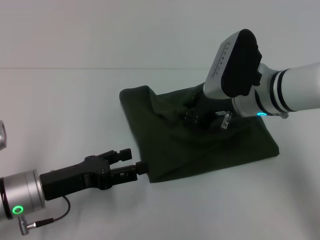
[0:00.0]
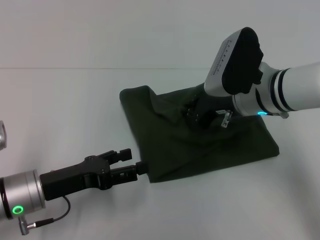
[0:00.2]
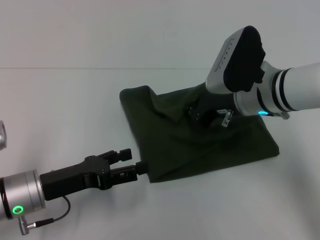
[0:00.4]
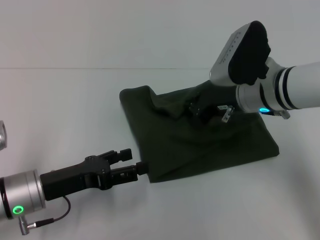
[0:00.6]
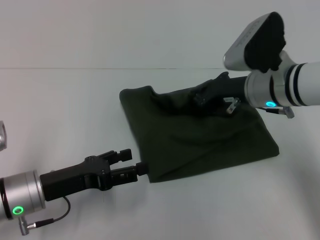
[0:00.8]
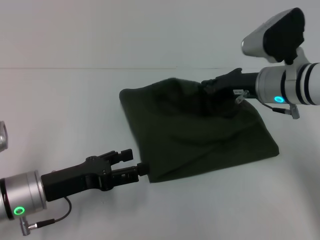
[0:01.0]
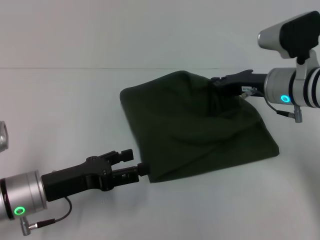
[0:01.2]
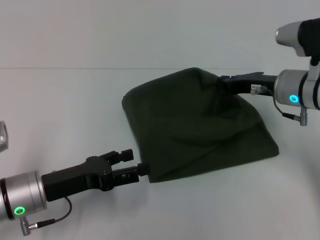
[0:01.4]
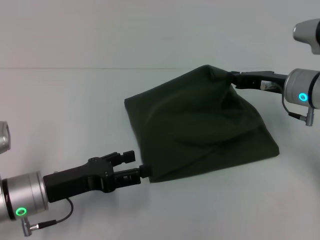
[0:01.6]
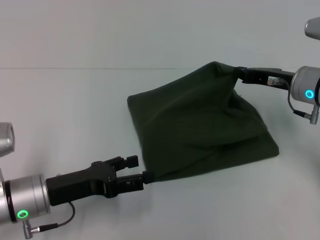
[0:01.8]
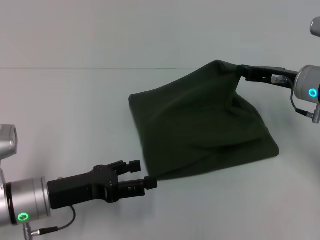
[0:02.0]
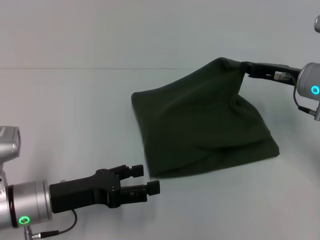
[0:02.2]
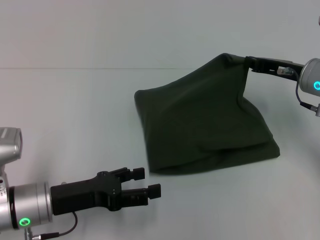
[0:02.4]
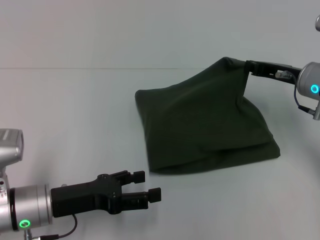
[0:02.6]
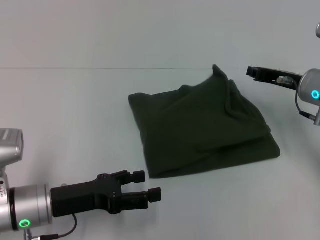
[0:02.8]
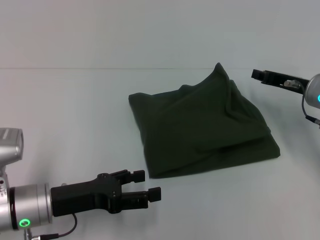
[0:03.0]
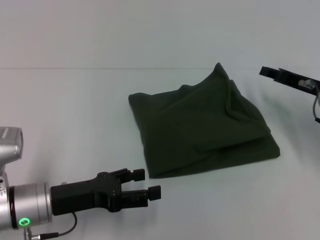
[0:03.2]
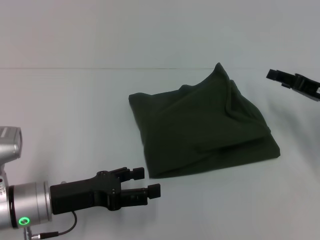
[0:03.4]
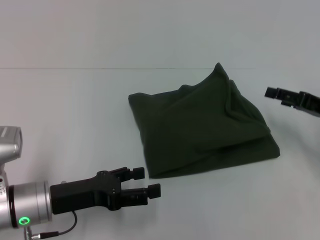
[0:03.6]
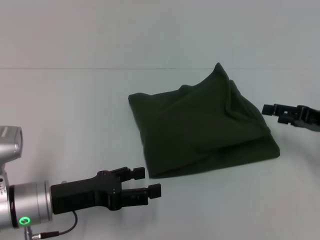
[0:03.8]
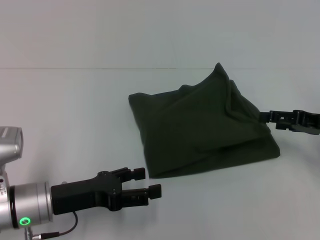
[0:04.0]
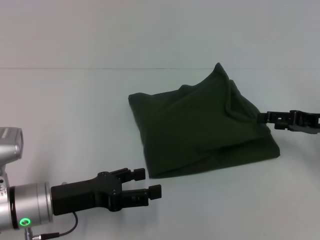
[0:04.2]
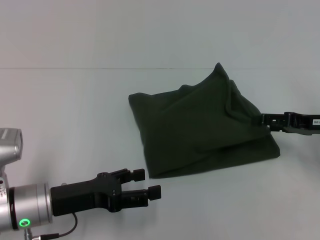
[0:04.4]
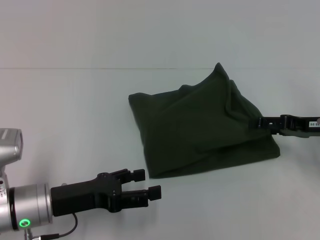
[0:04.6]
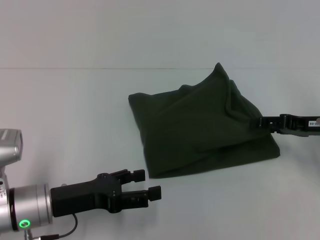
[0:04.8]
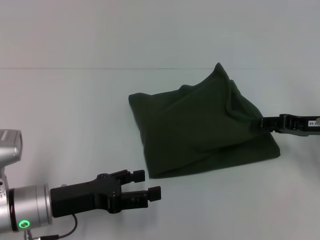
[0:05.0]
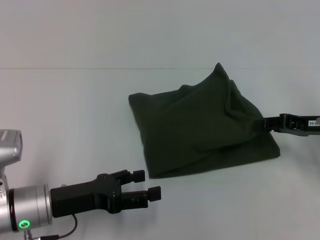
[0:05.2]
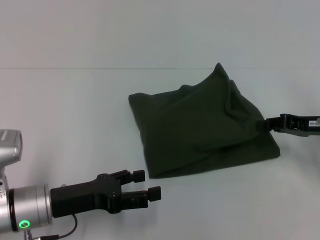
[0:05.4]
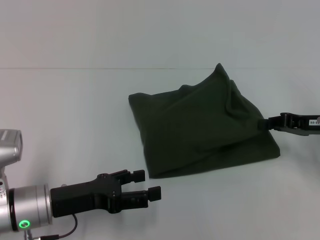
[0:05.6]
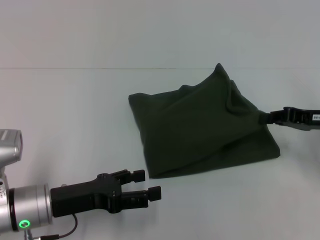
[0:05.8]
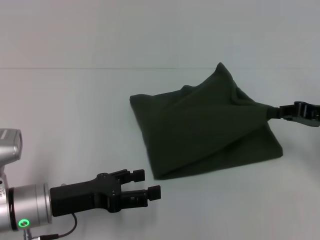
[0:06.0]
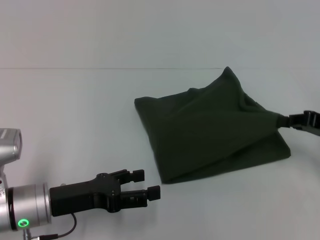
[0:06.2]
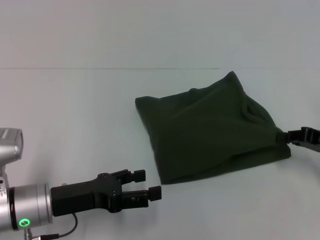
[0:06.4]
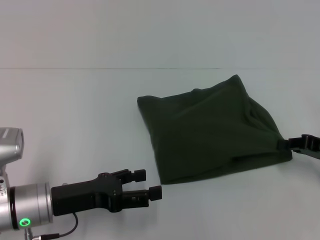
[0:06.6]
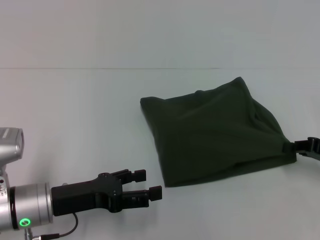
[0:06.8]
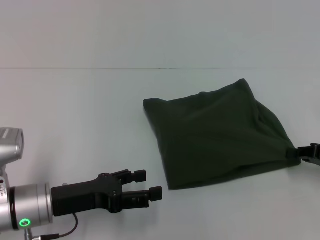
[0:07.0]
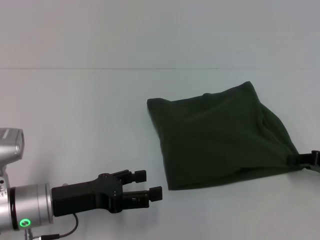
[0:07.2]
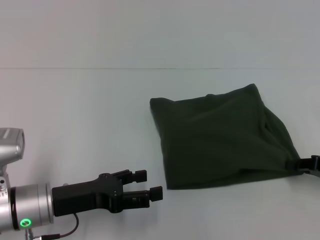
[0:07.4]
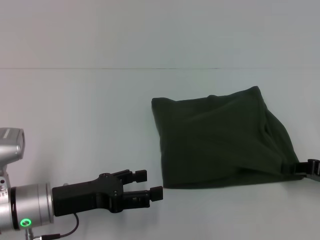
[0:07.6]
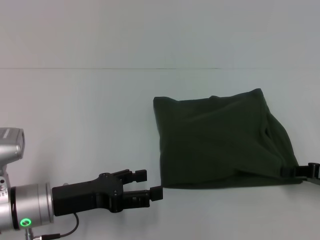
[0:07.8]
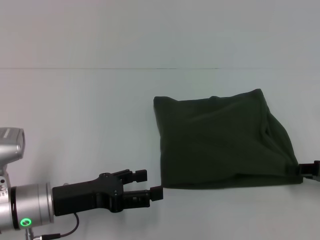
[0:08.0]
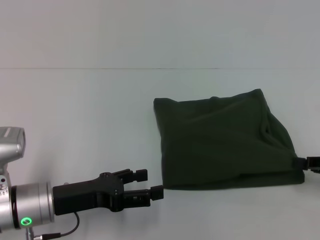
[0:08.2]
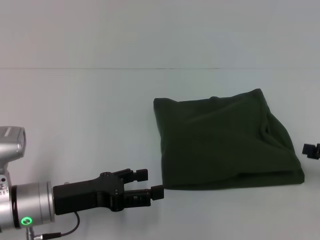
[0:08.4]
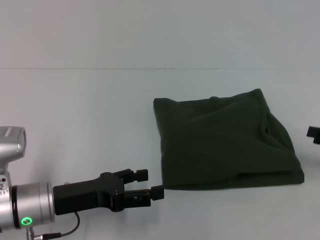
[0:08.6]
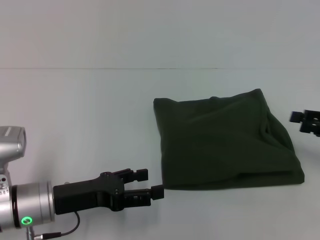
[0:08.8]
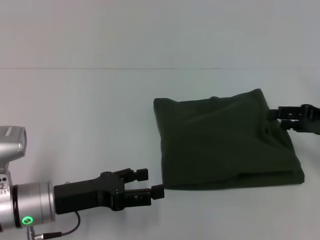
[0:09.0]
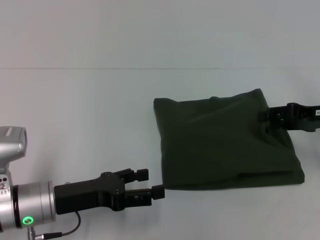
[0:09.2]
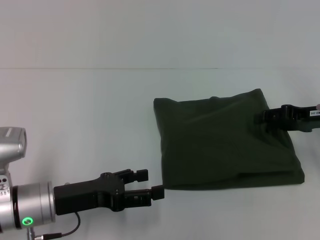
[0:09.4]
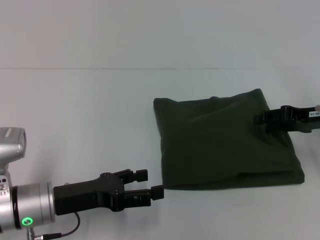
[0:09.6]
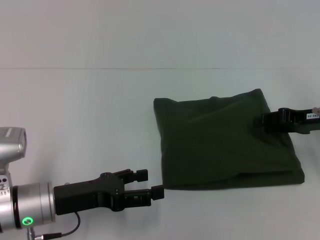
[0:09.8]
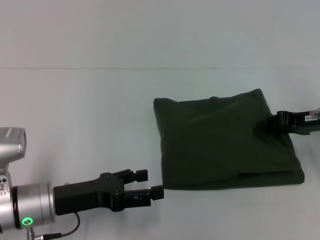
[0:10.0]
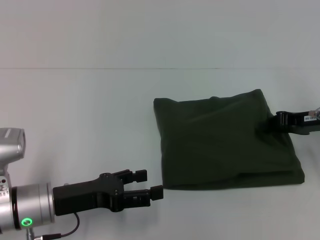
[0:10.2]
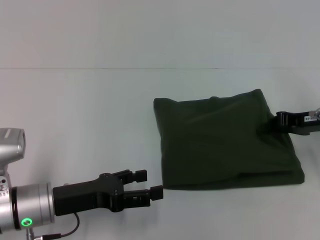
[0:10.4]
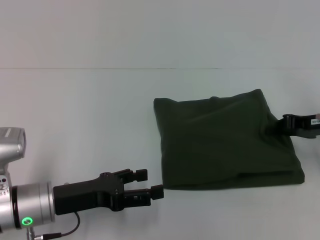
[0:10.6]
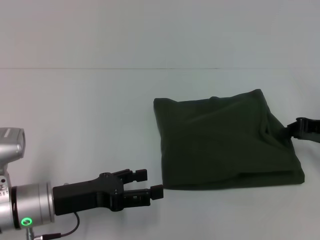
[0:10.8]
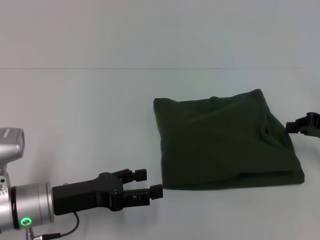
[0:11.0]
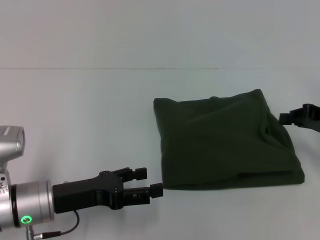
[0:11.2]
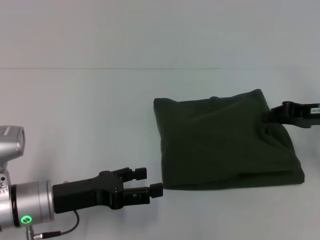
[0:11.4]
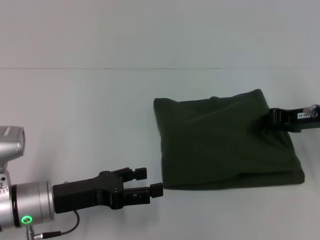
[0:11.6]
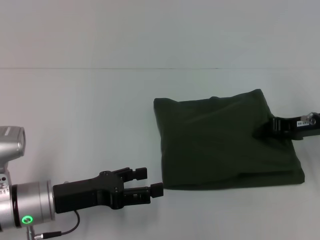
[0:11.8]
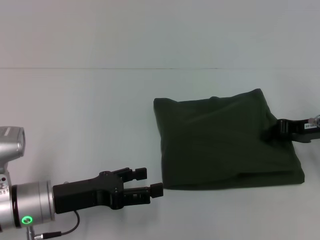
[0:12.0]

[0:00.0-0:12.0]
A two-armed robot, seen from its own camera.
0:00.0 to 0:01.6: The right gripper heads to the right, covering some 10 cm, and closes its fingers.
0:01.6 to 0:03.0: The grippers make only small movements.
0:03.0 to 0:04.4: The right gripper moves backward, approximately 5 cm, and opens its fingers.
0:04.4 to 0:06.0: The right gripper closes up.
0:06.0 to 0:07.6: The right gripper is displaced backward and downward by some 10 cm.
0:07.6 to 0:09.0: The right gripper goes roughly 10 cm forward and upward, and opens its fingers.
0:09.0 to 0:10.4: The right gripper closes.
0:10.4 to 0:12.0: The grippers make only small movements.

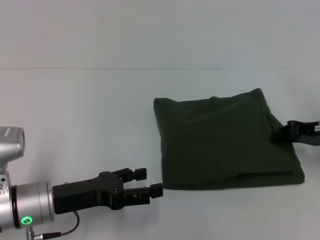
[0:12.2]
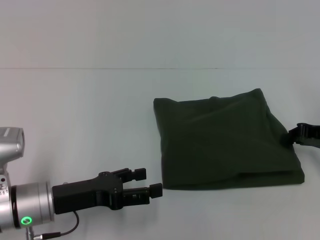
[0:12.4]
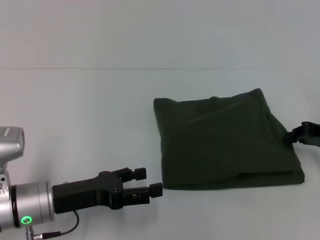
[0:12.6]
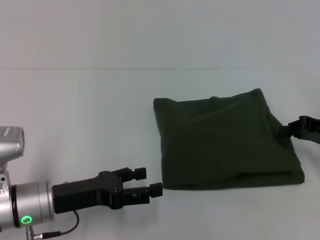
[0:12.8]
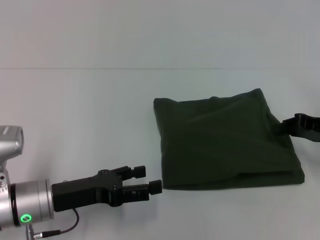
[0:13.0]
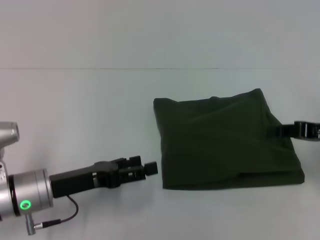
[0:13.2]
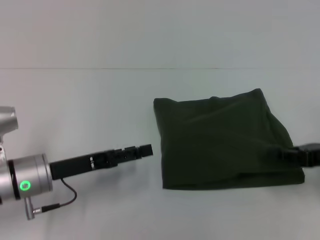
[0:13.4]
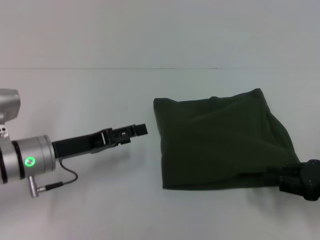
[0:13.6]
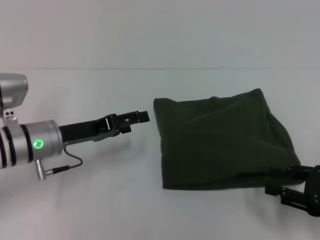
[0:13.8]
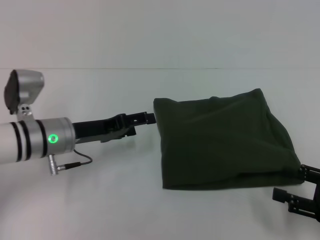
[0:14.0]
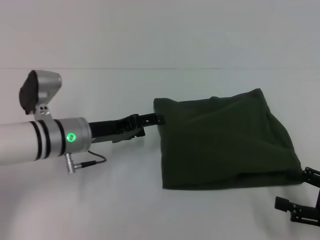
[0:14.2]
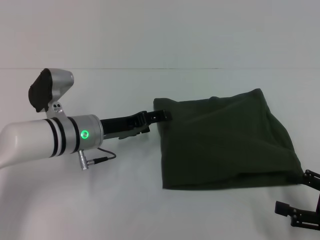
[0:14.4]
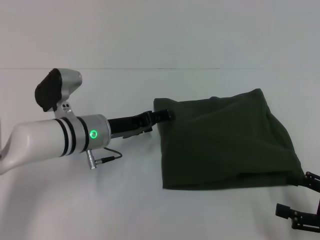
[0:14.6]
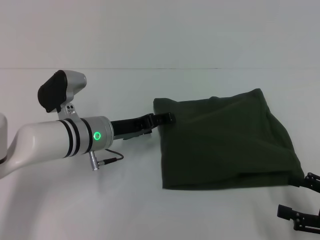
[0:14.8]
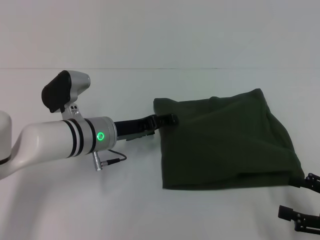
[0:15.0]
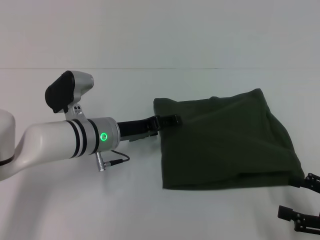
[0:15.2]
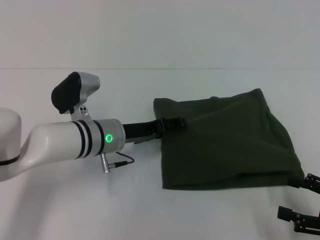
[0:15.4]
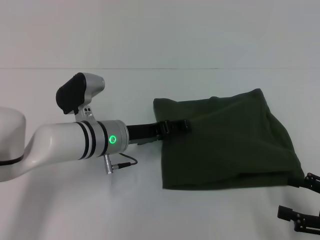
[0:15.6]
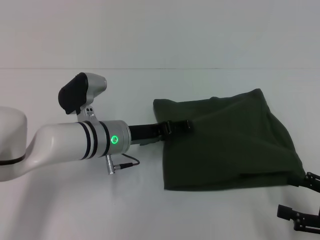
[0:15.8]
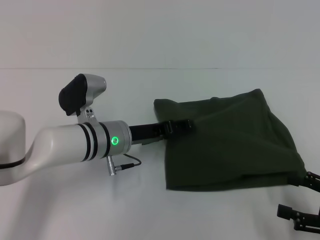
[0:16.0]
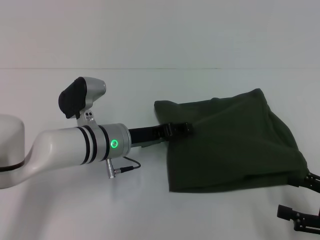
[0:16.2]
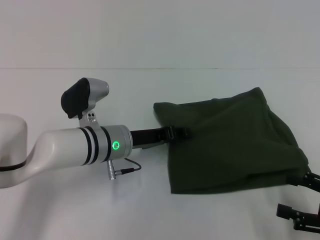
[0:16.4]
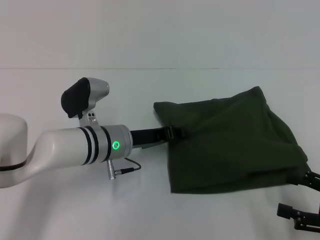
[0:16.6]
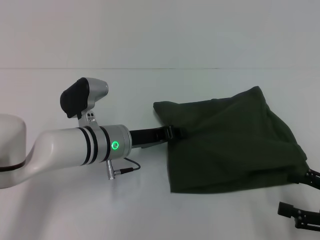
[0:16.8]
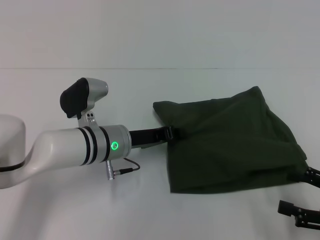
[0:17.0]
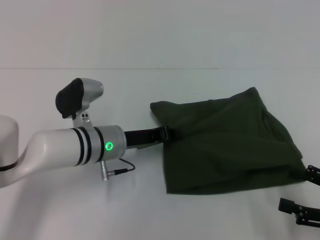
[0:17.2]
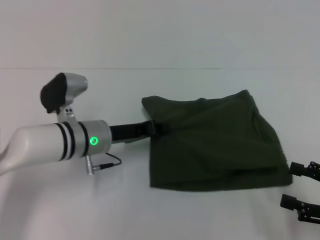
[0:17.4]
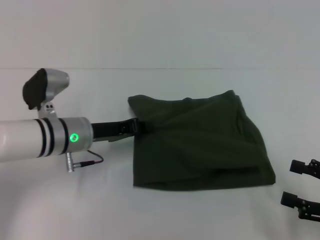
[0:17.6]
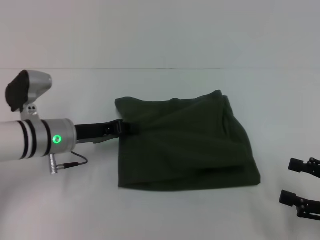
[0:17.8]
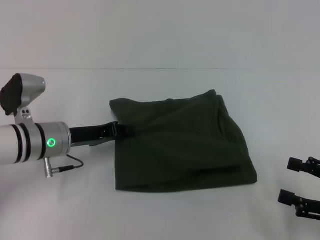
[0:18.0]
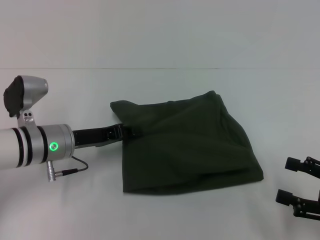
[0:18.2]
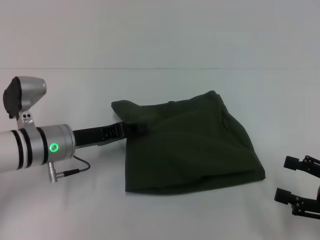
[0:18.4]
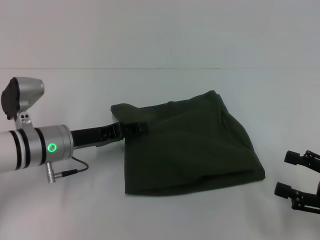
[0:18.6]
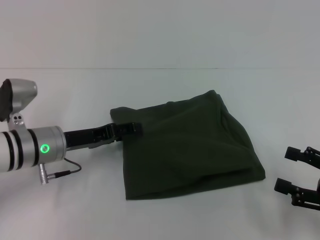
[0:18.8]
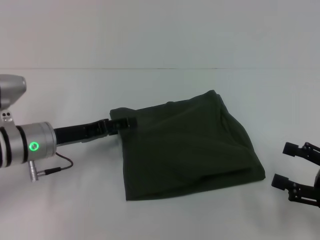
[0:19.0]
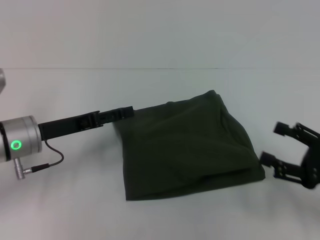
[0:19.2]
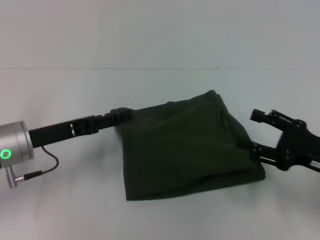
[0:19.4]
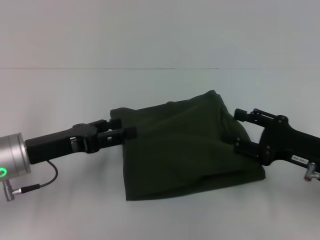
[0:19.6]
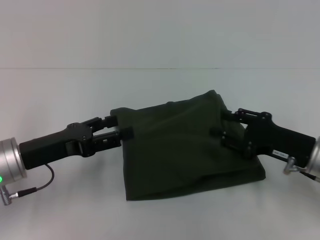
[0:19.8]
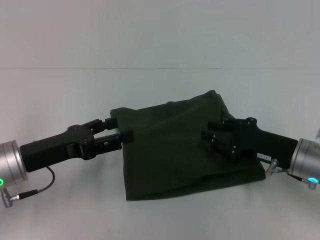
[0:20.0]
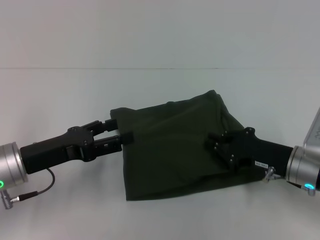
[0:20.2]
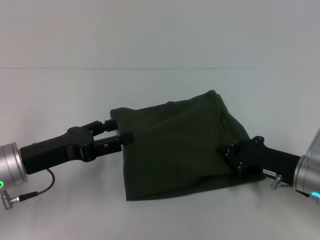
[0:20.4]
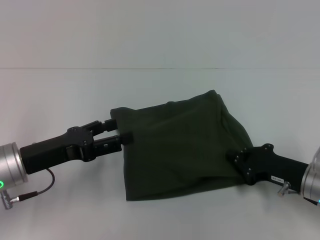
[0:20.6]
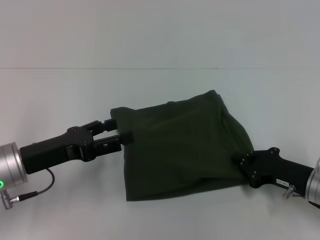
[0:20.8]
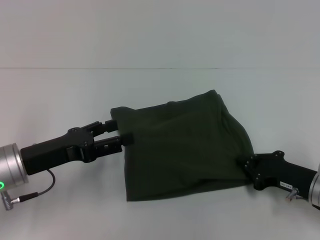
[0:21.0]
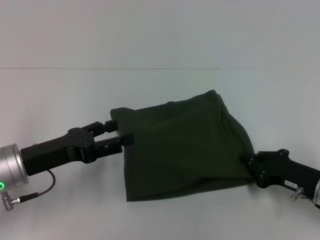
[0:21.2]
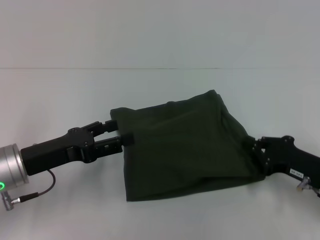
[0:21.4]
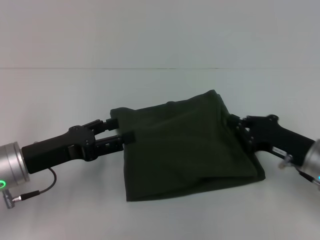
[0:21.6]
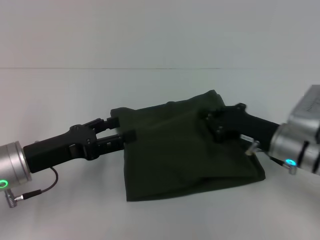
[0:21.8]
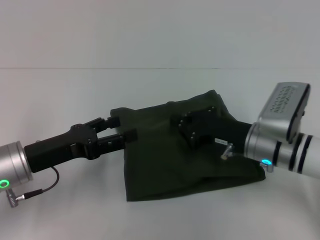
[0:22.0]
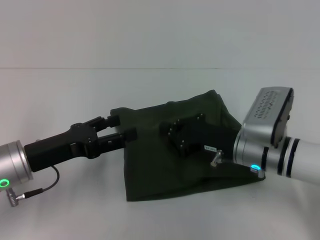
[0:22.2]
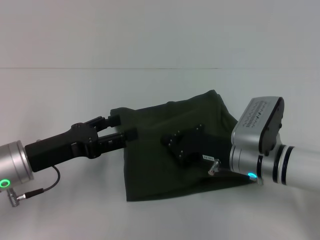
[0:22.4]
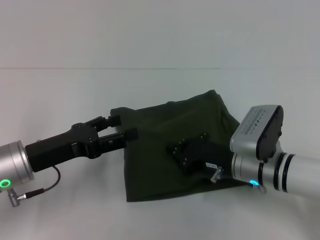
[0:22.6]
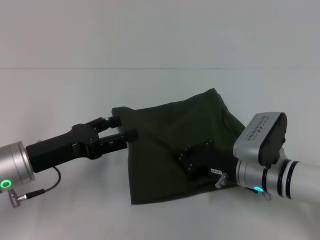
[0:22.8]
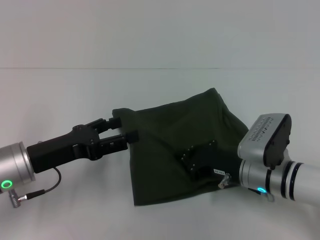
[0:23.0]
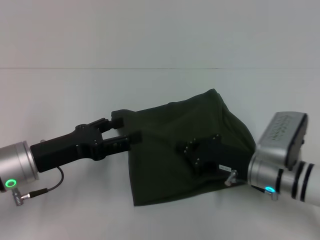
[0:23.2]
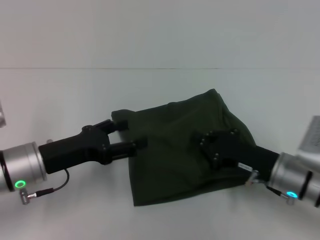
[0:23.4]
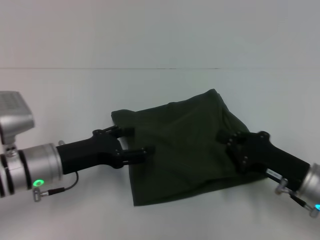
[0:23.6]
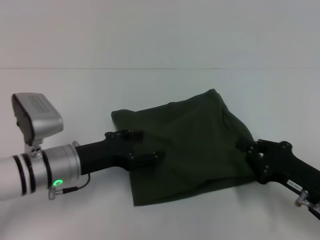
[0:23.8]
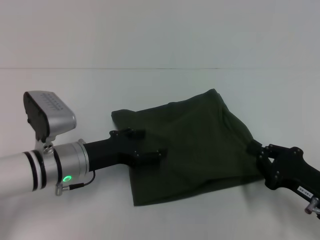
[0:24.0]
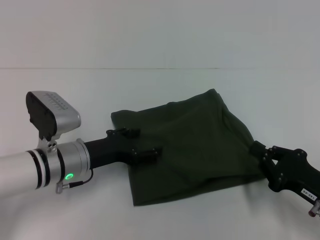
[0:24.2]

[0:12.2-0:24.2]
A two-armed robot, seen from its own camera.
0:12.2 to 0:13.8: The left gripper shifts approximately 10 cm forward. Meanwhile the right gripper travels backward by roughly 15 cm.
0:13.8 to 0:15.2: The left gripper shifts some 10 cm to the right. Meanwhile the right gripper opens.
0:15.2 to 0:16.6: The left gripper closes up.
0:16.6 to 0:18.2: The left gripper travels to the left by roughly 10 cm.
0:18.2 to 0:19.8: The left gripper heads backward, covering roughly 5 cm, and opens up; the right gripper shifts roughly 15 cm forward and to the left.
0:19.8 to 0:21.2: The right gripper is displaced downward by approximately 5 cm, and closes its fingers.
0:21.2 to 0:22.6: The right gripper goes some 10 cm to the left.
0:22.6 to 0:24.2: The right gripper travels to the right and backward by some 15 cm; the left gripper heads to the right, covering about 5 cm.
